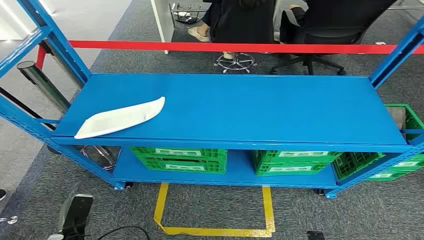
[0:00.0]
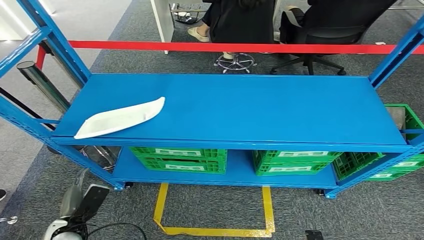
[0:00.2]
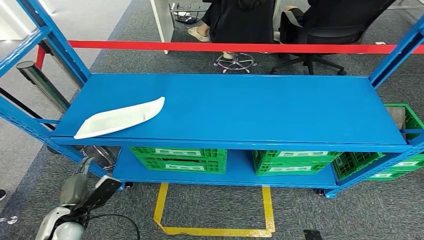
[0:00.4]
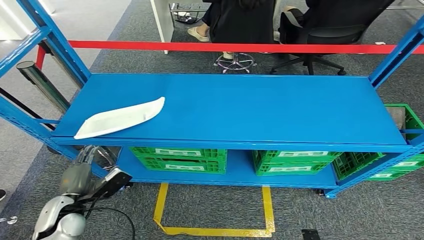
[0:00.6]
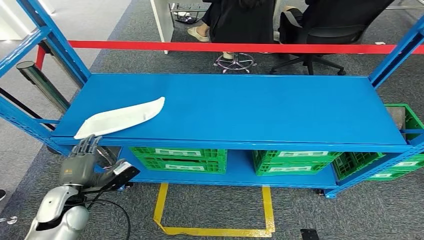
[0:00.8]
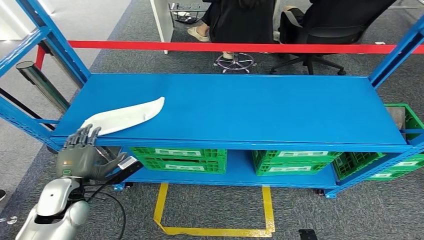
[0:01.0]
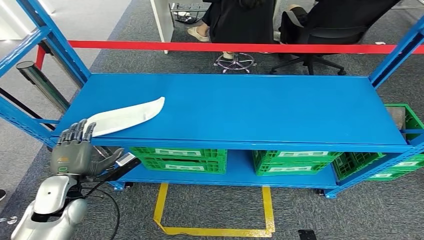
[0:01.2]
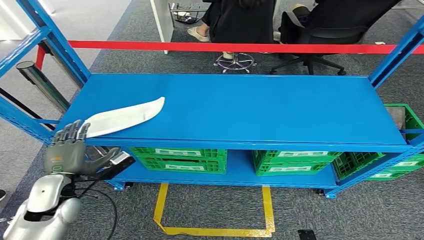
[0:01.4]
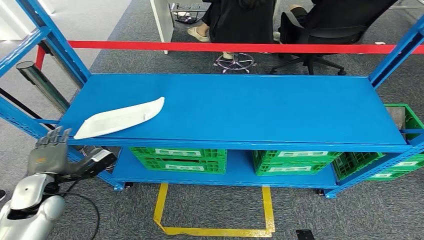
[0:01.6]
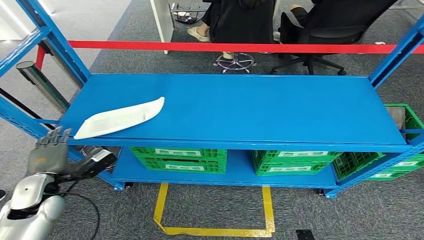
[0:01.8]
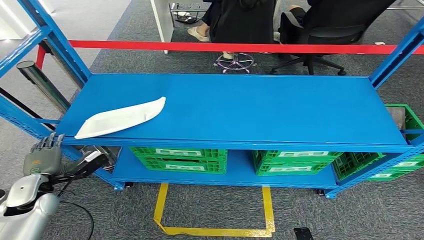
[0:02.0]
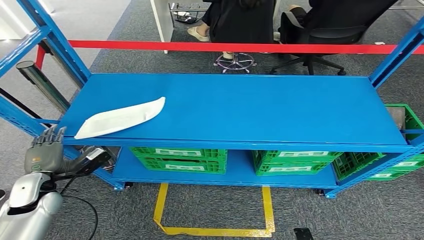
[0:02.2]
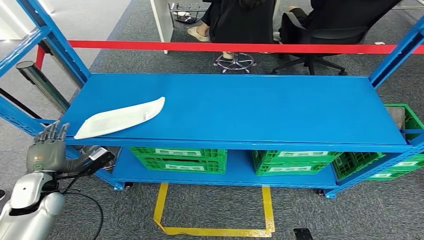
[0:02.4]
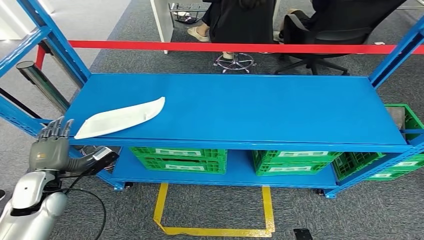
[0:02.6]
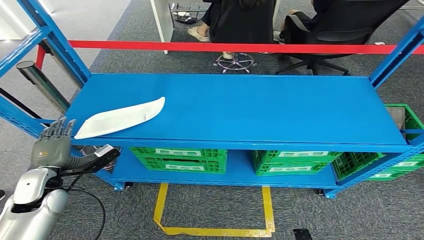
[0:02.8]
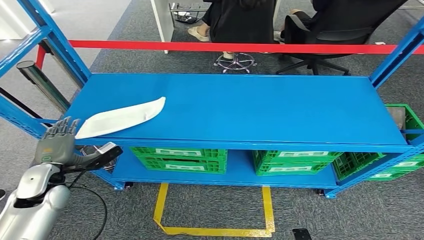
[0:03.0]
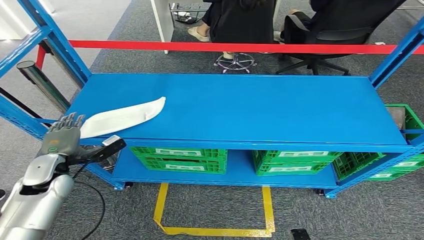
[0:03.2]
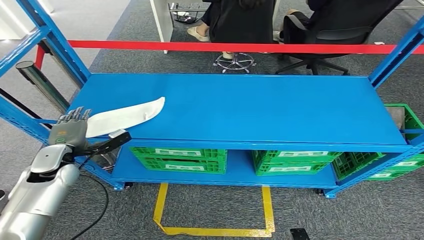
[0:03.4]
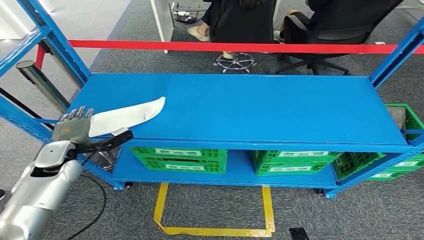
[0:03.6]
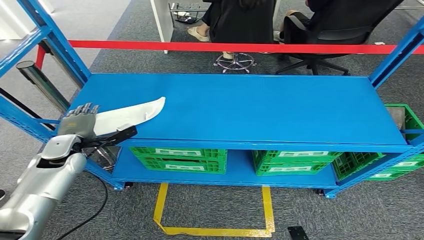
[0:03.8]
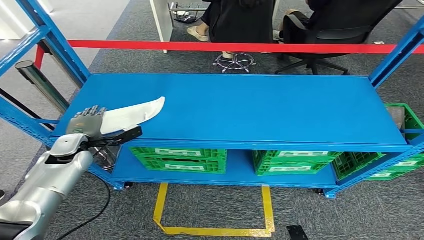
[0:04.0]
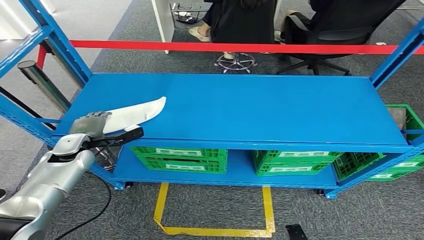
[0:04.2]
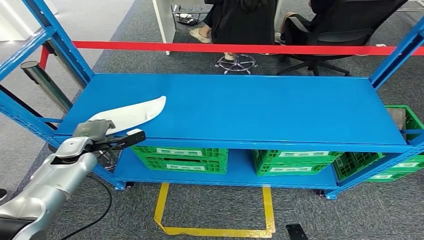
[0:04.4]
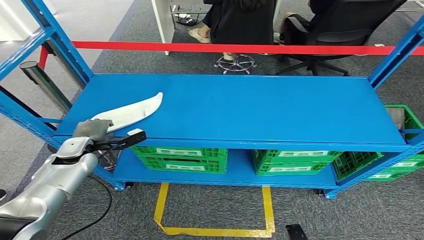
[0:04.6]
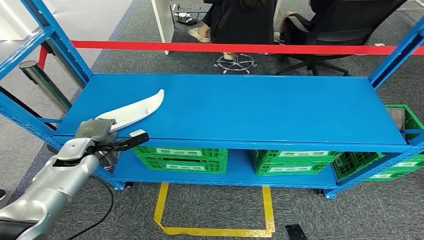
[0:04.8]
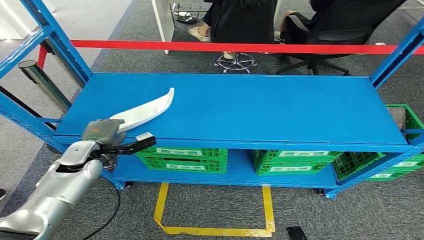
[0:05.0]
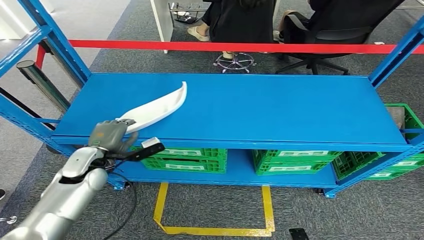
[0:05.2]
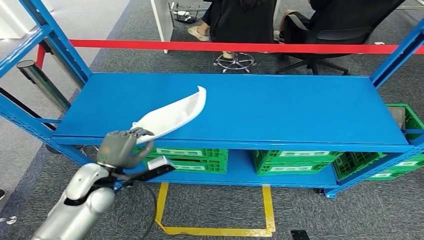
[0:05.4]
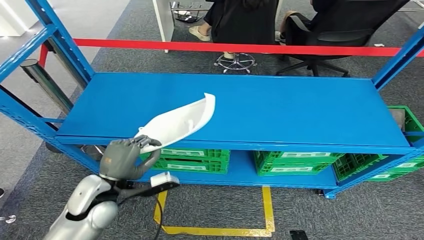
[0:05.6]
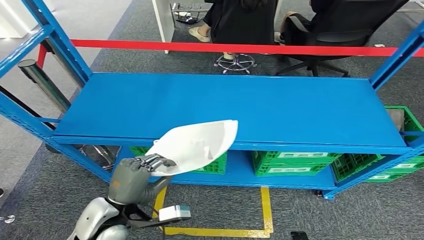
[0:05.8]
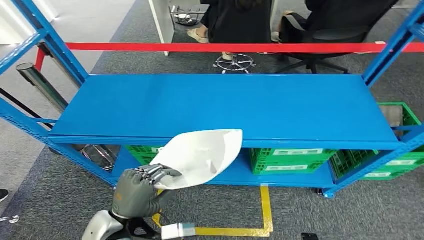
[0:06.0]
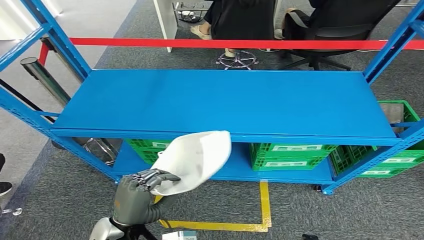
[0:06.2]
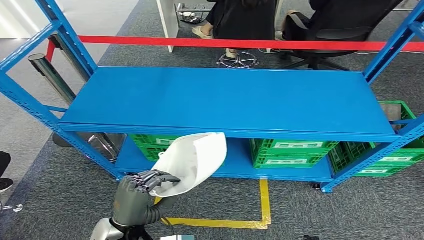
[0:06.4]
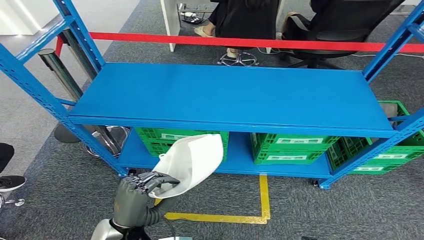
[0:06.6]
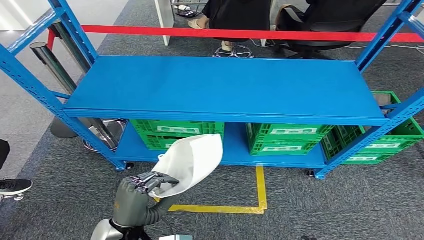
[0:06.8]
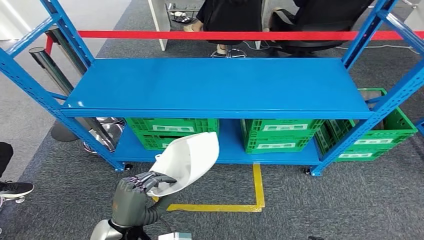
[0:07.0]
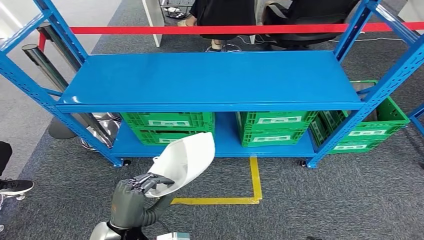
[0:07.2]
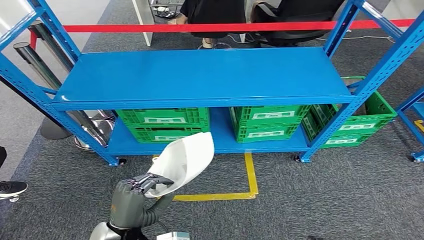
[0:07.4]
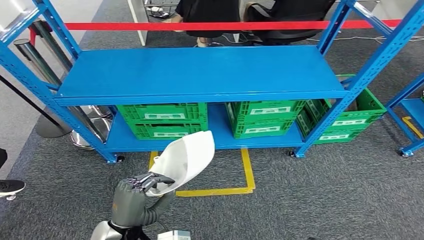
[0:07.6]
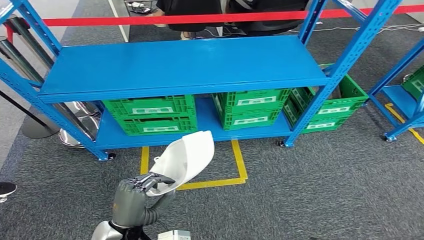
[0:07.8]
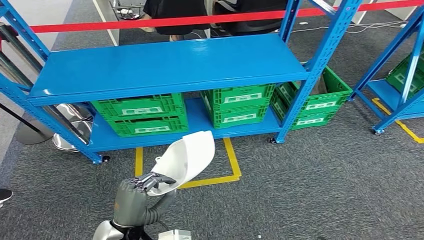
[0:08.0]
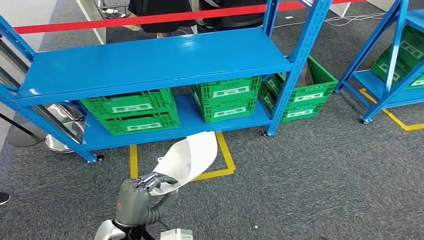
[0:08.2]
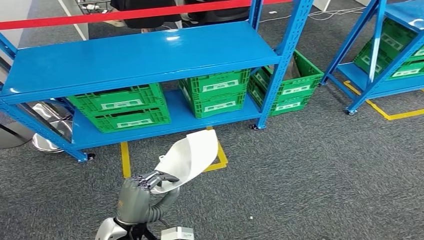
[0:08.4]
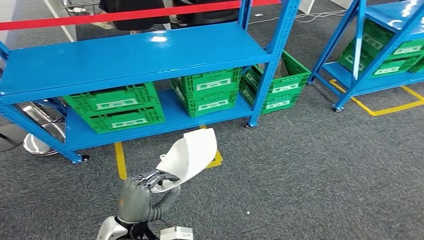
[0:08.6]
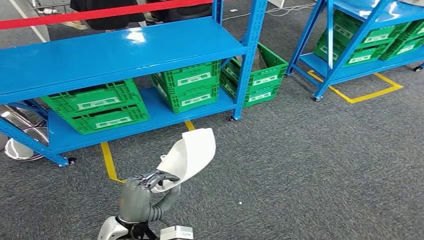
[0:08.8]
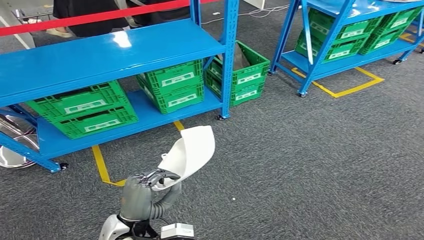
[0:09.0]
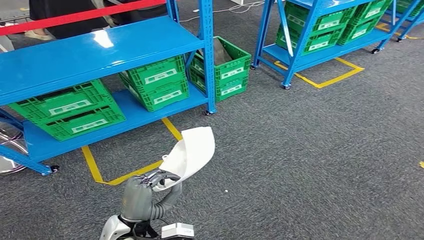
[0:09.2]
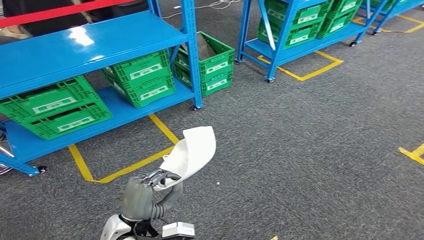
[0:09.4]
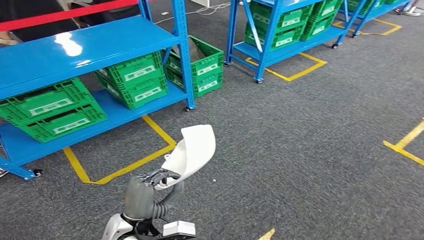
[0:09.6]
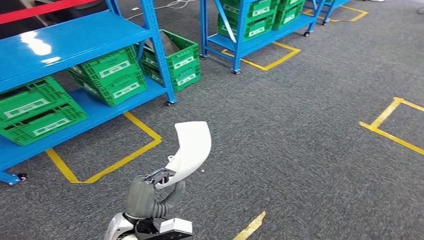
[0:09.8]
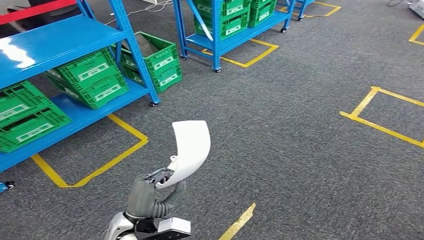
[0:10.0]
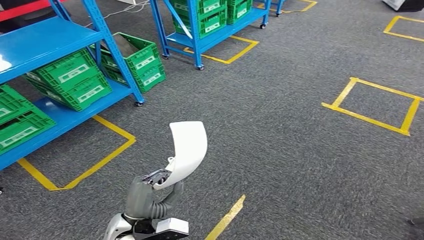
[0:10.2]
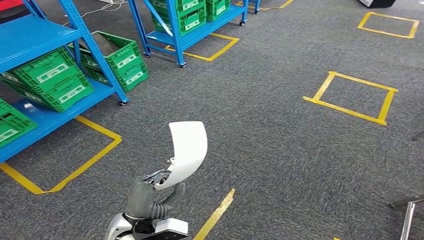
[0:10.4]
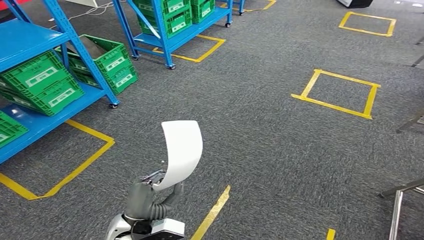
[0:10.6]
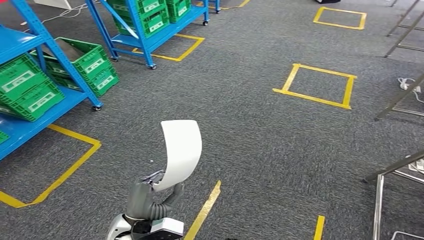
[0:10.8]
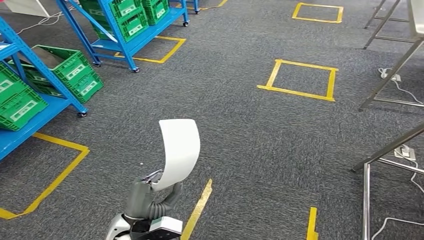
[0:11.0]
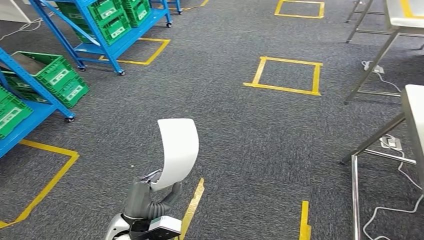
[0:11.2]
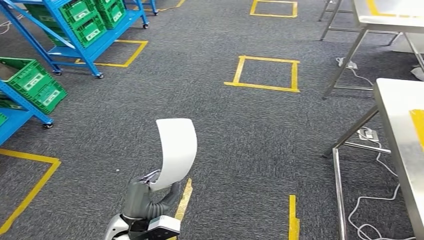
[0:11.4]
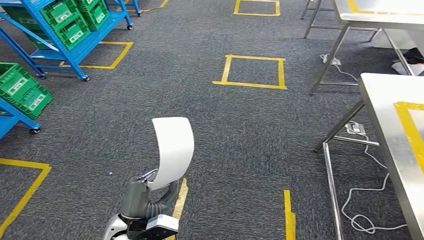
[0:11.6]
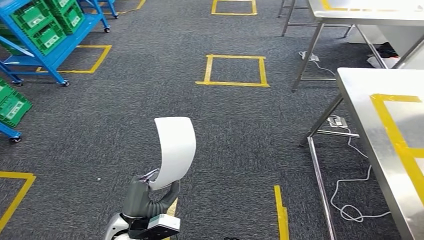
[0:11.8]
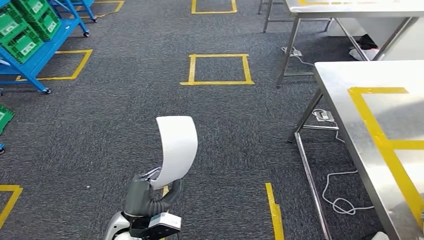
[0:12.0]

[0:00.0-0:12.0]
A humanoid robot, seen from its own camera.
Step, 0:00.0 to 0:05.4: Pick up the small component from the shelf.
0:01.6 to 0:03.0: The hands make only small movements.
0:03.0 to 0:04.4: The left hand heads forward, covering approximately 10 cm.

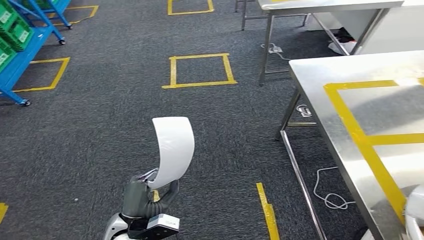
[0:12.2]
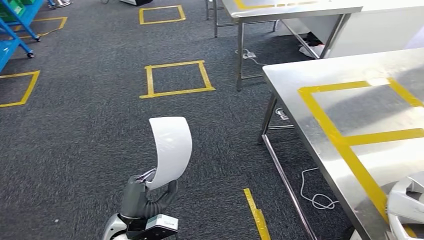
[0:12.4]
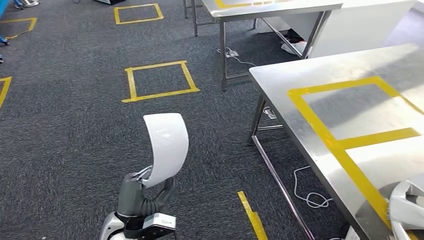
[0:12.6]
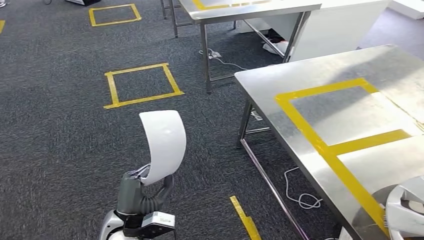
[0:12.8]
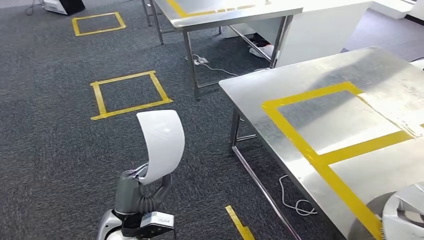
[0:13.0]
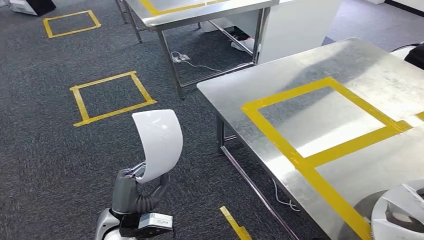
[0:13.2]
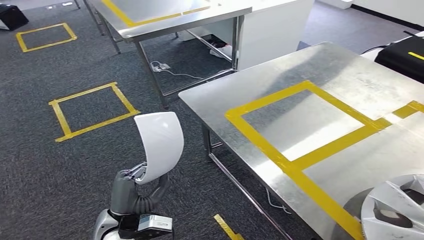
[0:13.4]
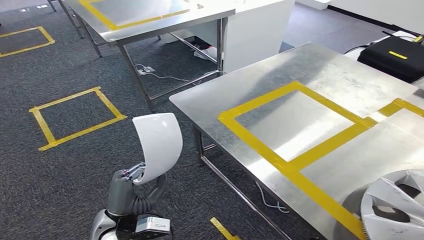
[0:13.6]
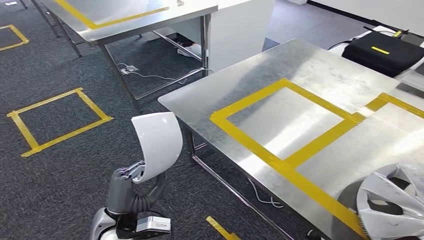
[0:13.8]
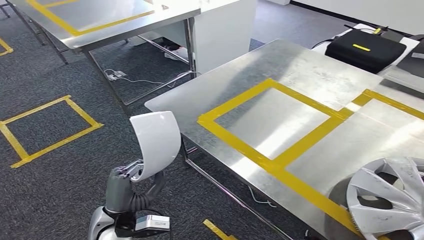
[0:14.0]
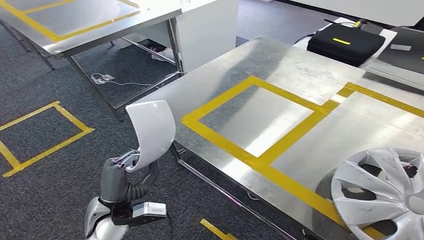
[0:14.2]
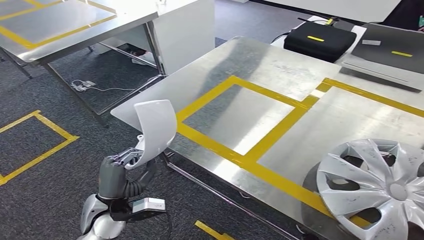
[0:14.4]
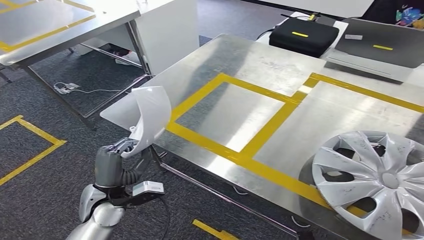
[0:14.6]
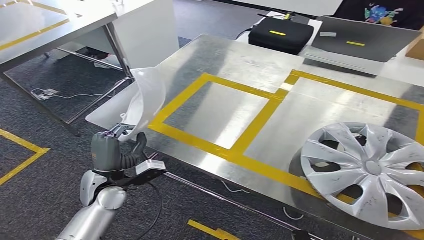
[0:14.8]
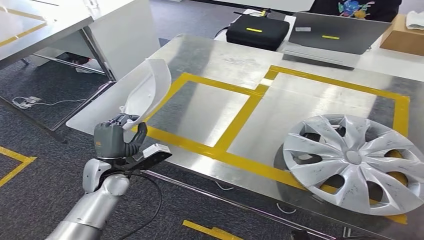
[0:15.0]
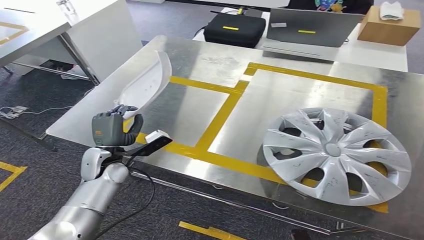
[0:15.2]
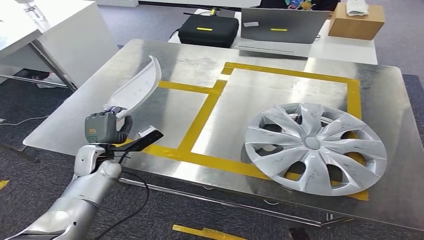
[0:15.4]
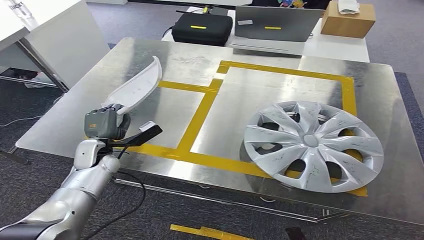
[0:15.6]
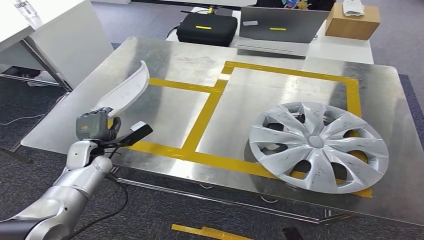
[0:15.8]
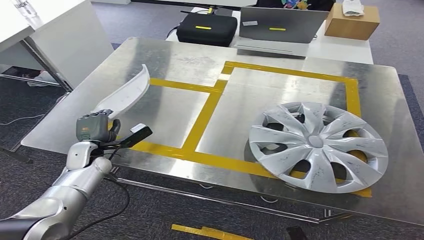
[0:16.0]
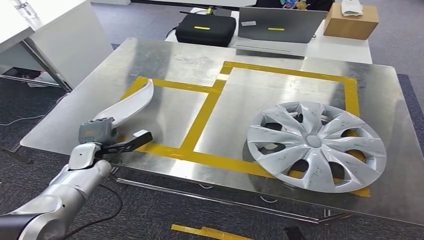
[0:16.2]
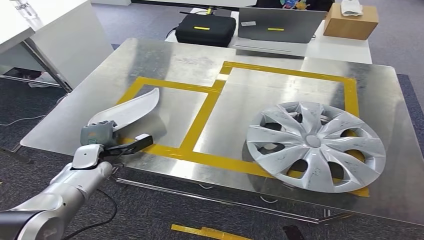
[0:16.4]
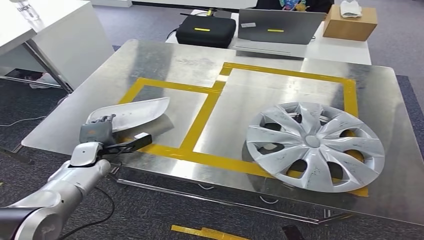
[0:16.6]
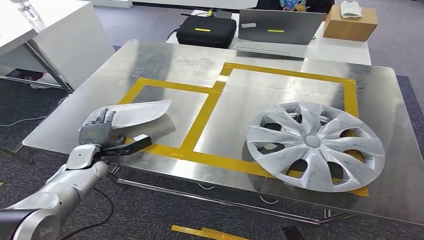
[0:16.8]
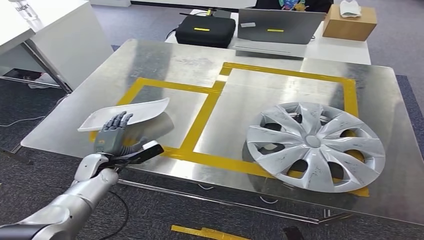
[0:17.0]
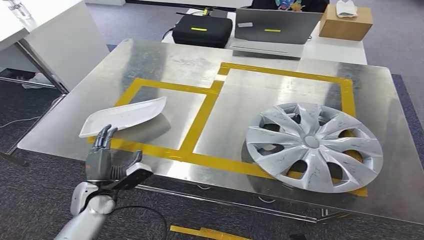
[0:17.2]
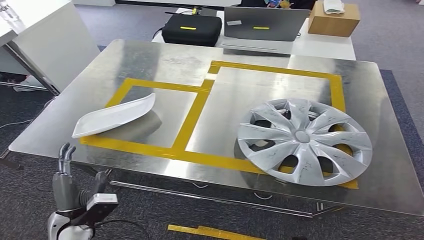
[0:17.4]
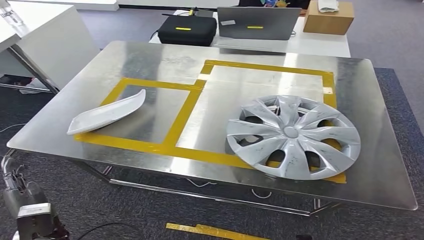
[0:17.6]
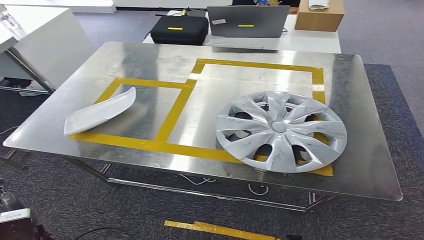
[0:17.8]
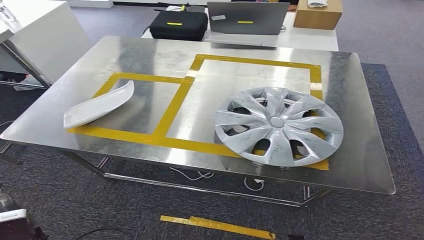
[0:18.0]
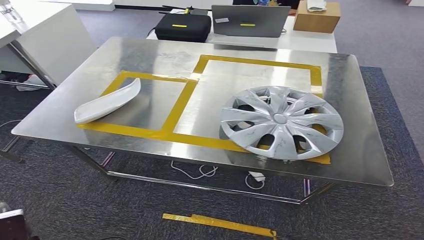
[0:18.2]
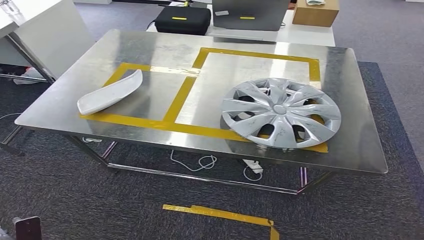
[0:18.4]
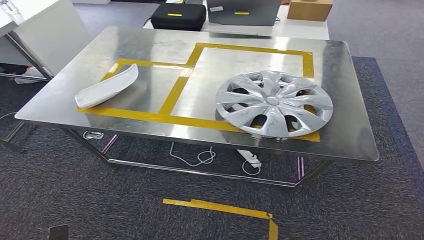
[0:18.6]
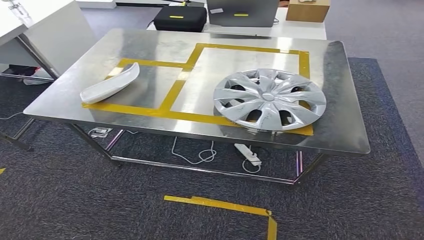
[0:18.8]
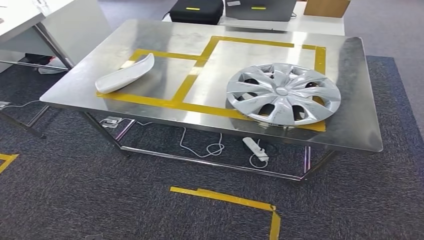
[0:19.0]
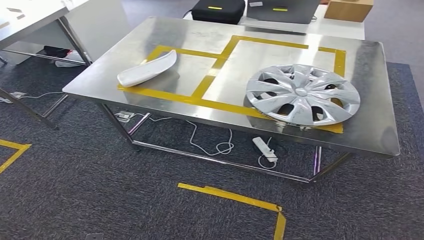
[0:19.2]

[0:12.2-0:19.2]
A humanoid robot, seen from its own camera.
Step, 0:12.2 to 0:14.6: Bring the small component to the front of the workbench.
Step, 0:14.8 to 0:18.4: Insert the small component into the corresponding slot on the workbench.
